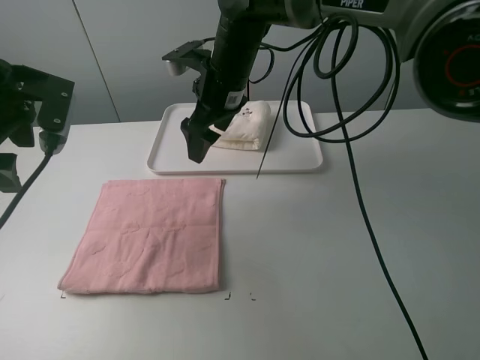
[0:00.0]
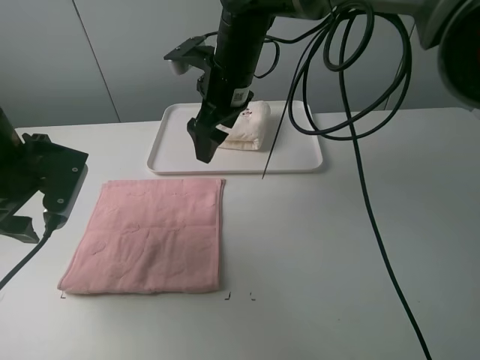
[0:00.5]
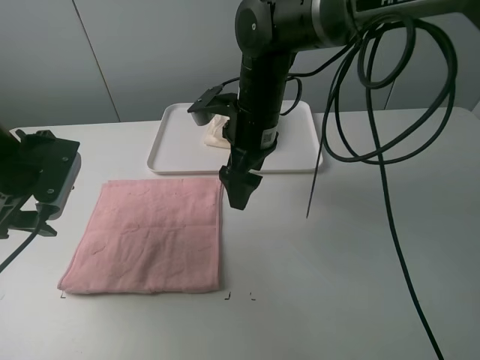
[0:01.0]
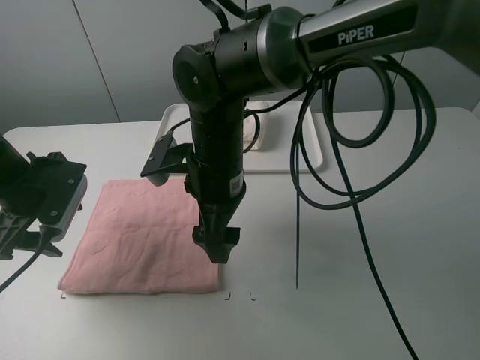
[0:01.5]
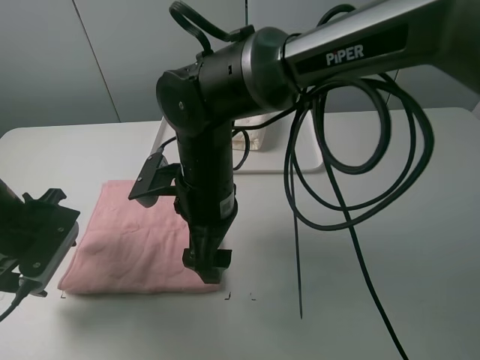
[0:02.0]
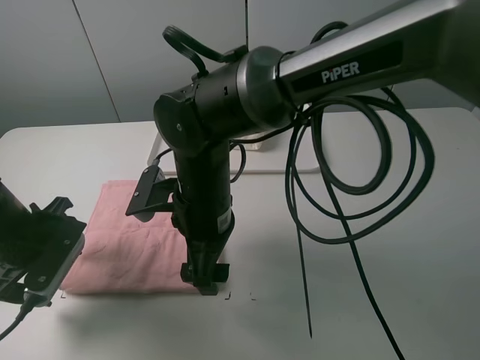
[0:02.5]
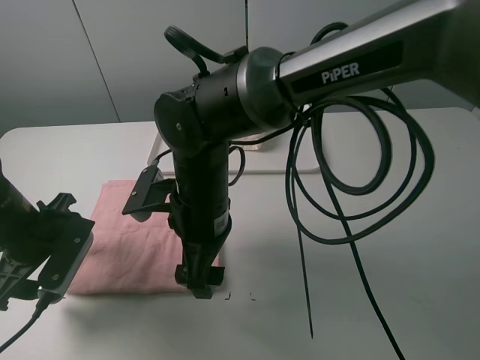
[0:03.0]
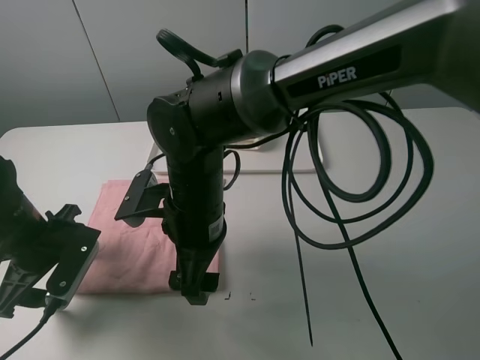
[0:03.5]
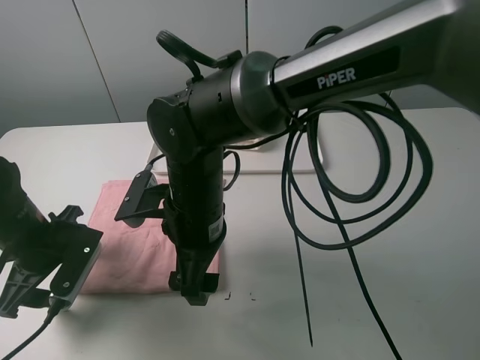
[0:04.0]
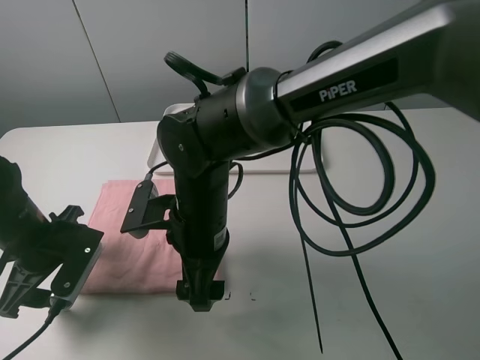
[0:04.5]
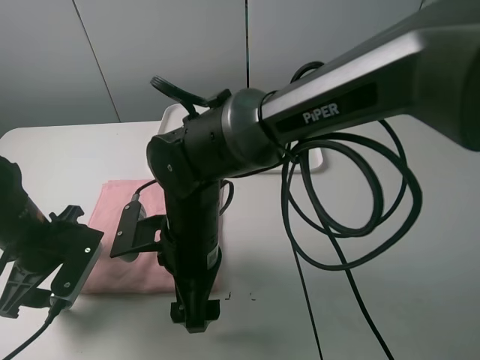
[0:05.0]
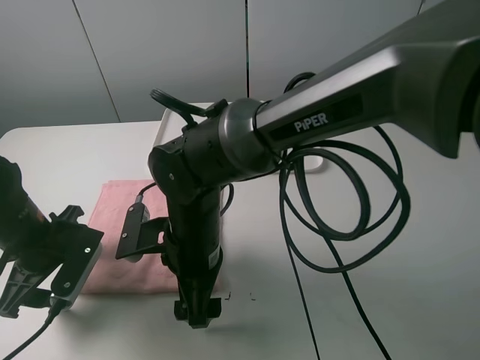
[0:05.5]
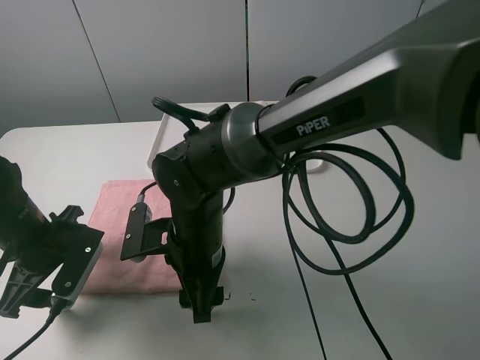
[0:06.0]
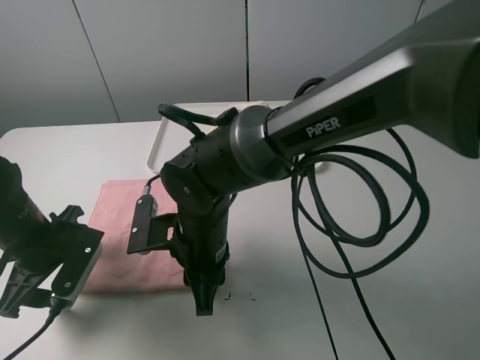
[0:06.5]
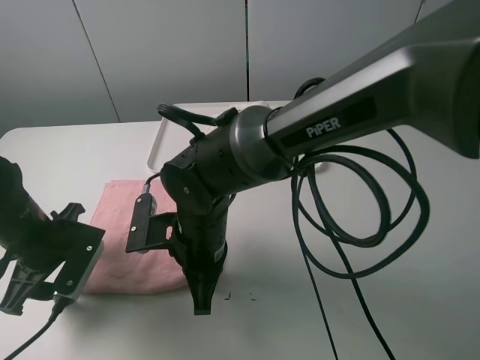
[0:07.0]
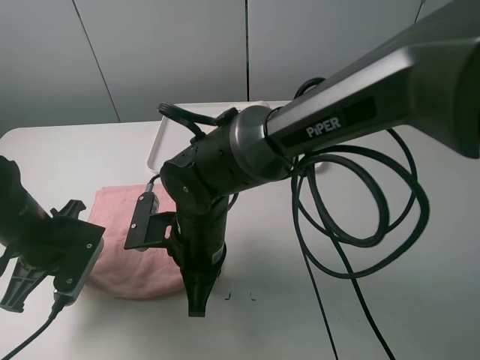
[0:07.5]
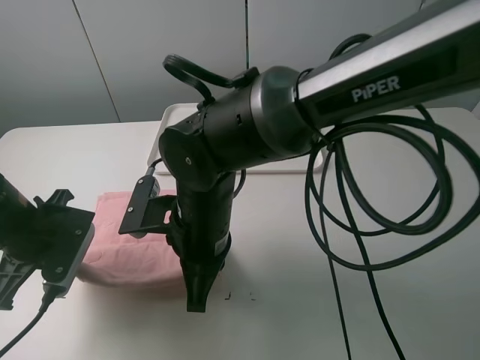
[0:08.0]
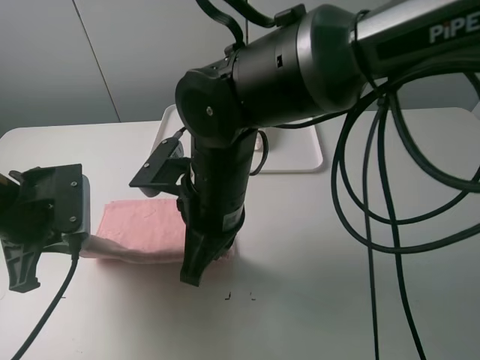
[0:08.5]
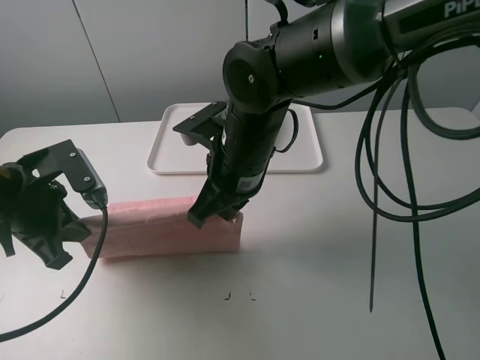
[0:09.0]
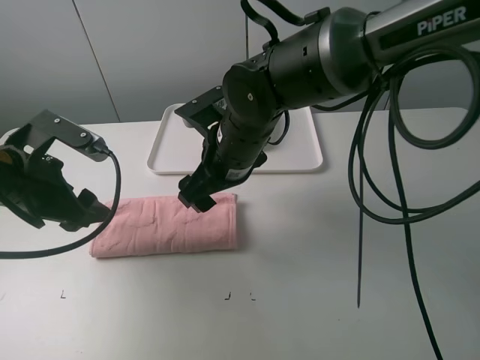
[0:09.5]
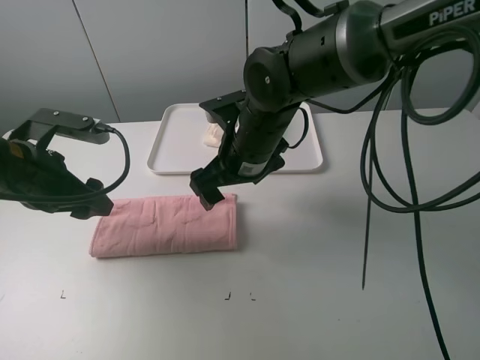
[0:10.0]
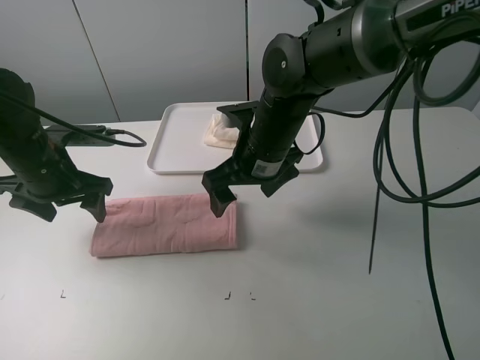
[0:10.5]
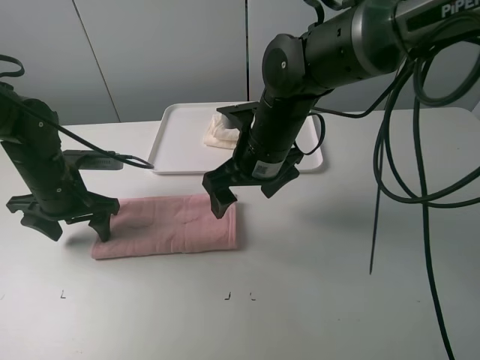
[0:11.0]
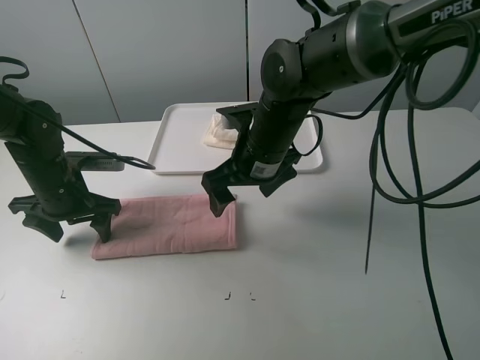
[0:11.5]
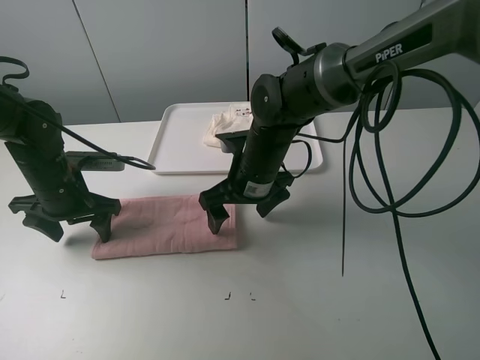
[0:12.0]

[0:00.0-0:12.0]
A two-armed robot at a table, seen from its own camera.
Task of the whole recording: fold one of the towels by two grippers and place it on the tray,then fold another towel by two grippers and place it on the folded towel.
Step, 0:00.0 to 0:07.0: Grasp the pink towel with the left gripper.
Step, 0:07.5 to 0:09.5: Fold the pink towel upwards with the left gripper.
Step, 0:10.0 to 0:11.0: Press the pink towel with the left gripper.
0:00.0 to 0:02.0: The left gripper is displaced downward and backward by roughly 15 cm. The right gripper shifts about 15 cm backward.
0:06.0 to 0:08.0: The right gripper closes its fingers, while the left gripper closes its fingers.
0:08.0 to 0:10.0: The left gripper moves some 5 cm, and opens up. The right gripper shifts some 10 cm forward and to the right, and opens up.
0:10.0 to 0:12.0: The right gripper moves downward, approximately 5 cm. Meanwhile the left gripper goes some 10 cm downward and forward.

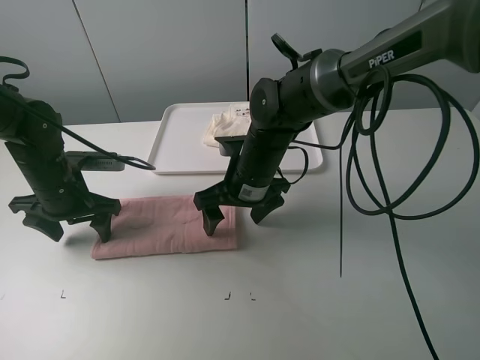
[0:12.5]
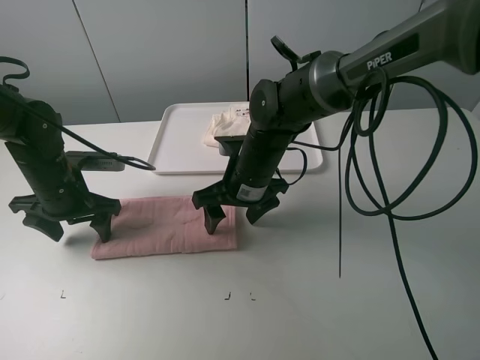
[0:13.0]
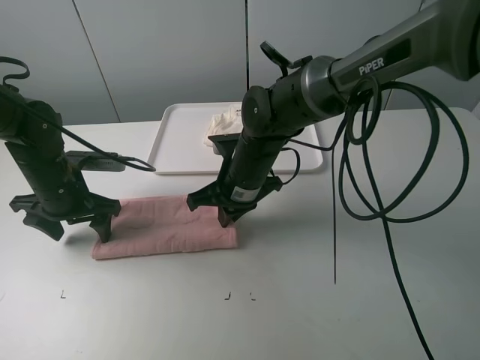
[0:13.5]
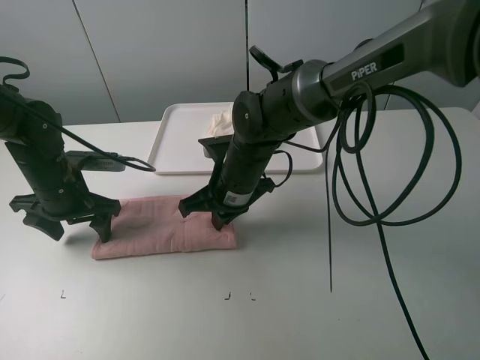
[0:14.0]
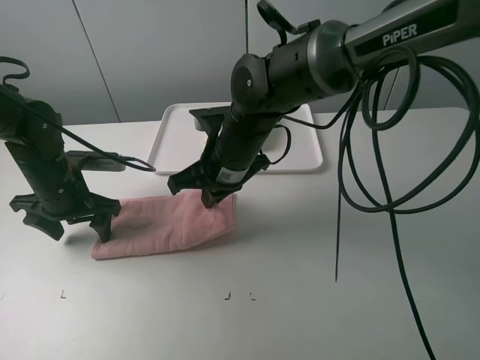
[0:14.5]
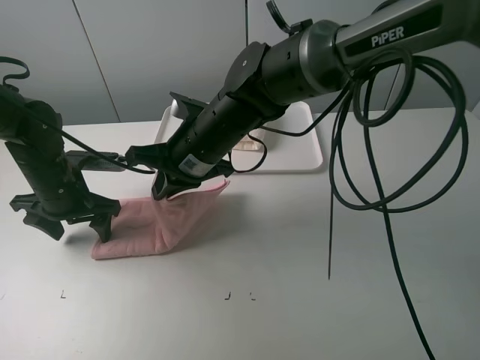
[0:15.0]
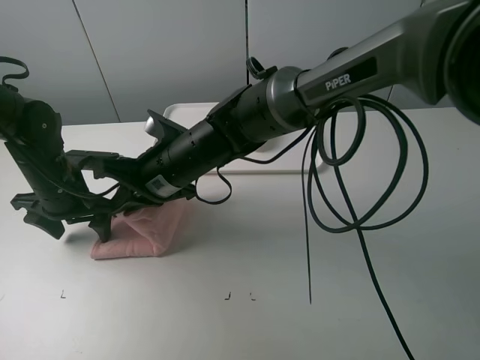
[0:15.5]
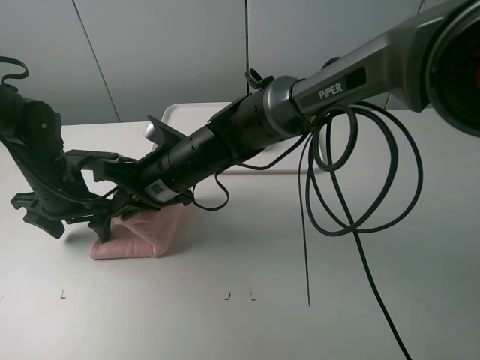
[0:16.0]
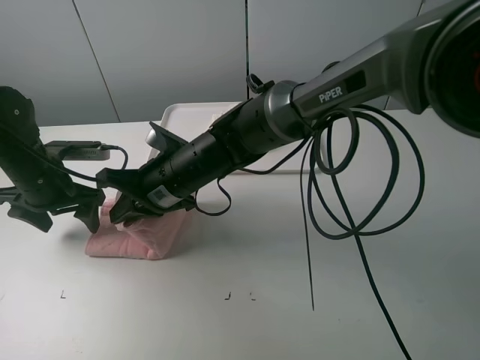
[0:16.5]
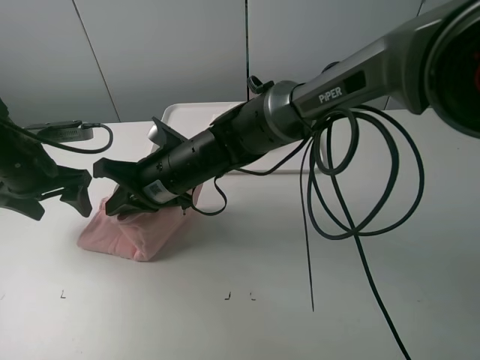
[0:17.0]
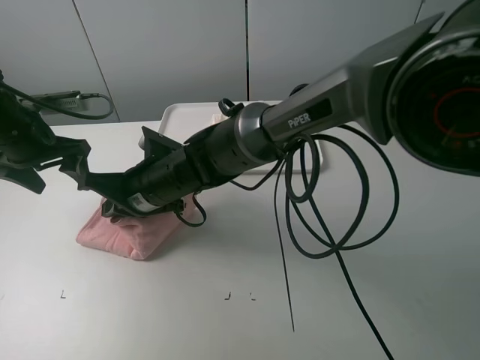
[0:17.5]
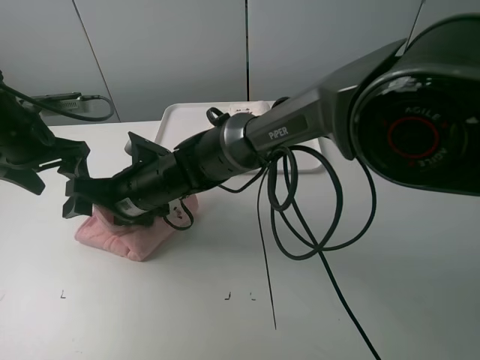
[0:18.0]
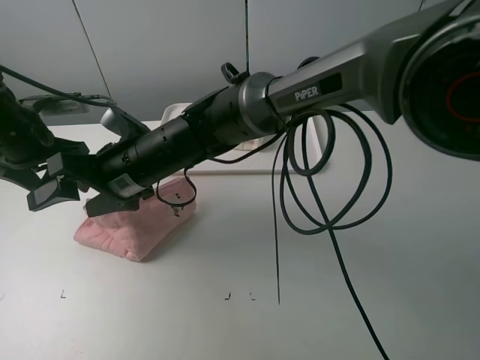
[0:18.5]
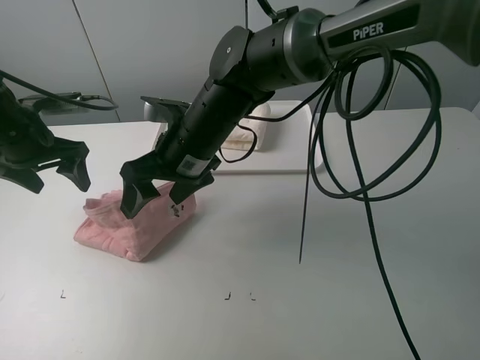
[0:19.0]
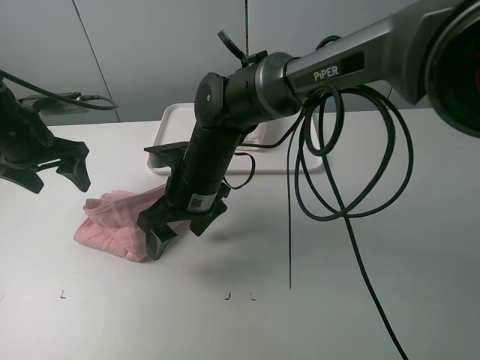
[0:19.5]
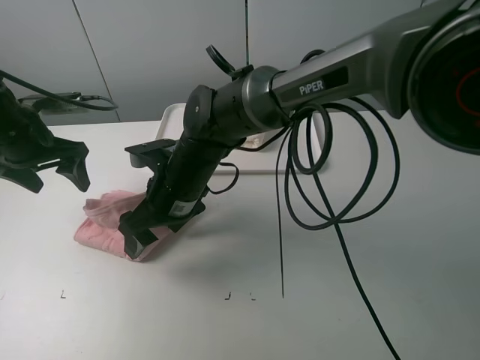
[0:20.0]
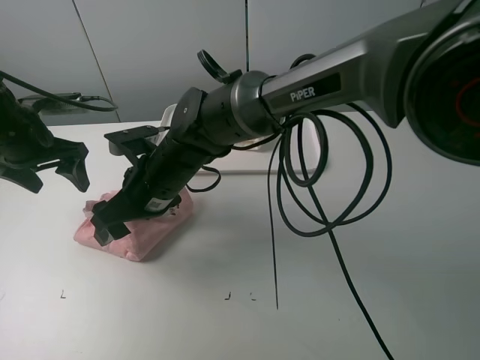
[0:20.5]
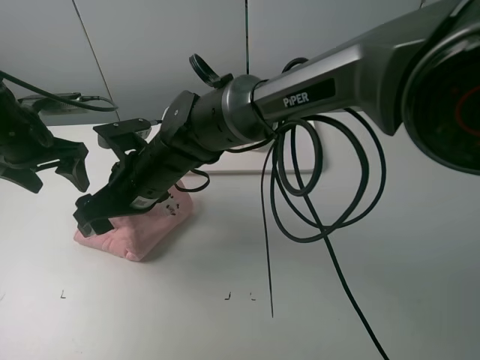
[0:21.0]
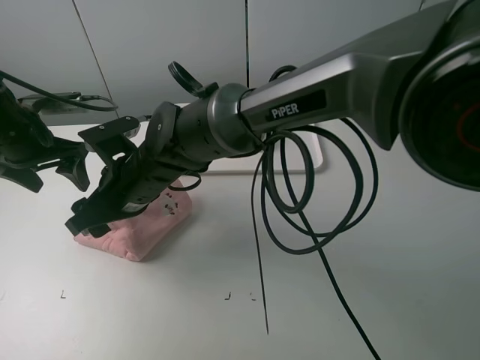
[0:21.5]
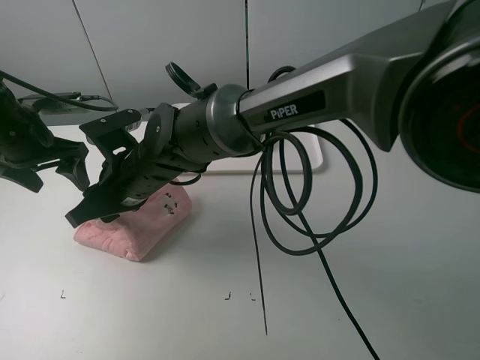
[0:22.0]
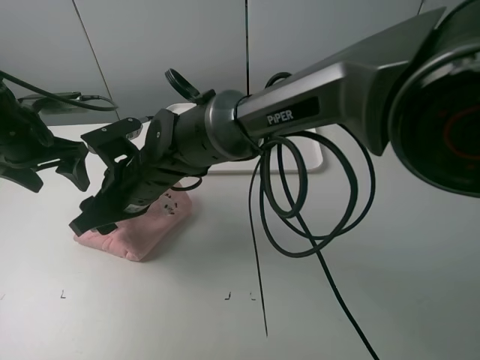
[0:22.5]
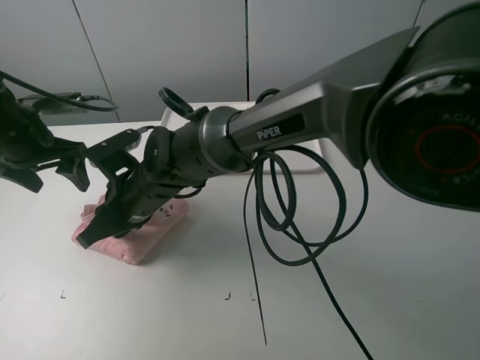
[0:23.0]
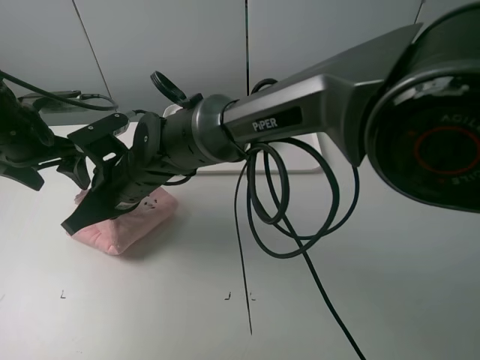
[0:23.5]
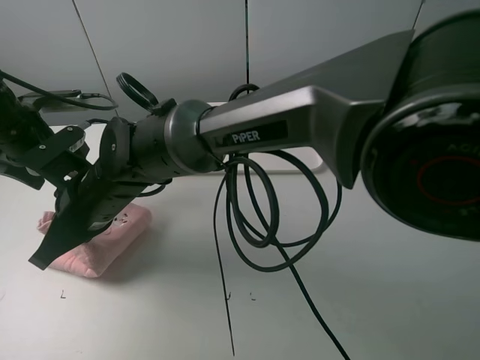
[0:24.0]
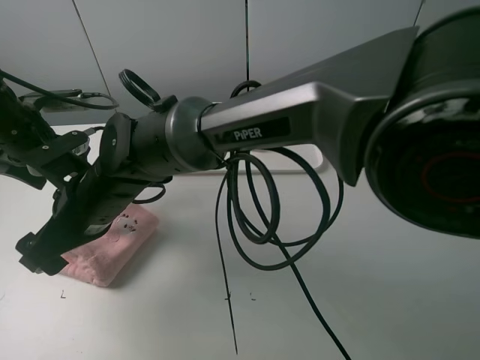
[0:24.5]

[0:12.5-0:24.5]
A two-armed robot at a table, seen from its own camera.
Task of the whole recording: fold one of the towels by two grippers and place it on the tray,then fold another towel by two grippers and place it on the folded towel.
Step, 0:14.0 to 0:18.5: Fold the pink towel from right to left with right gripper.
0:12.5 to 0:14.5: The right gripper shifts by about 5 cm, and closes.
0:14.5 to 0:16.5: The right gripper shifts roughly 5 cm to the left.
0:16.5 to 0:18.5: The right gripper opens up. The left gripper shifts roughly 5 cm upward.
0:22.5 to 0:24.5: The right gripper shifts by roughly 5 cm, and closes and opens again.

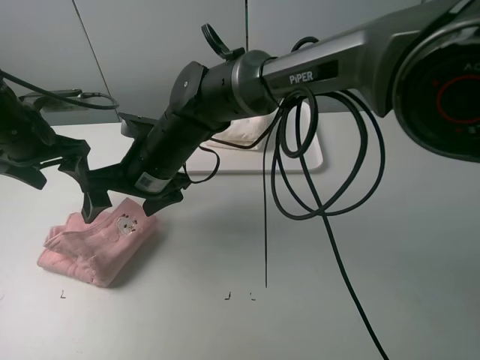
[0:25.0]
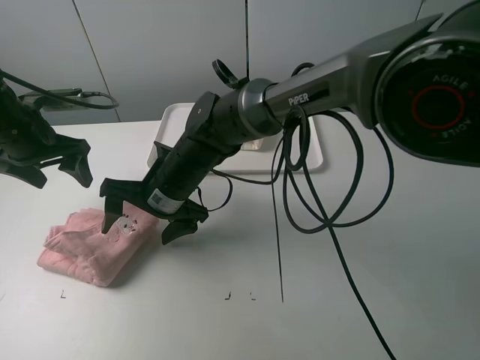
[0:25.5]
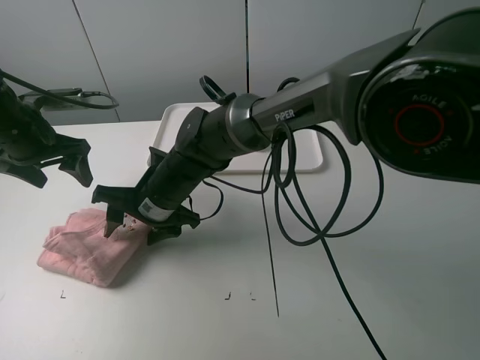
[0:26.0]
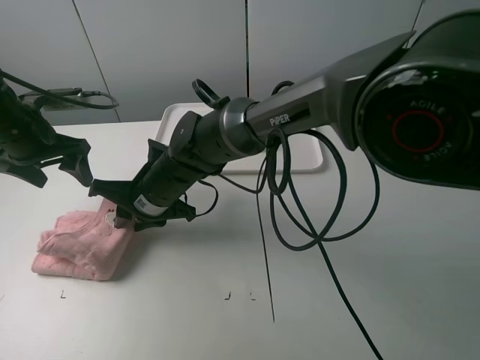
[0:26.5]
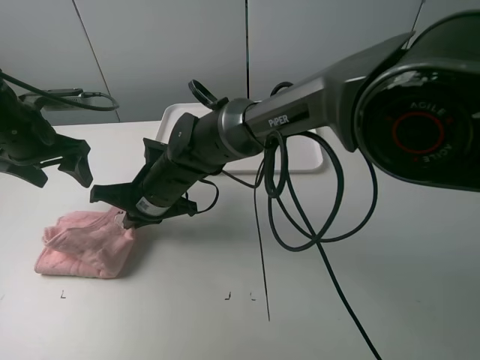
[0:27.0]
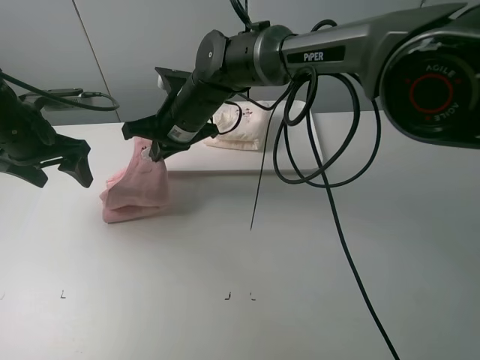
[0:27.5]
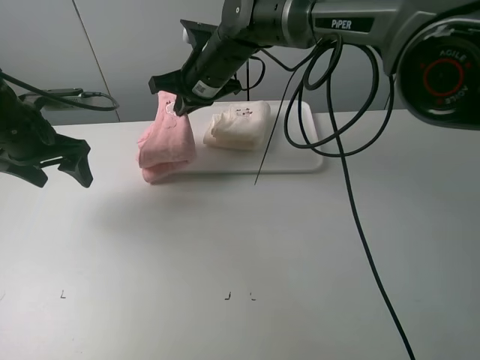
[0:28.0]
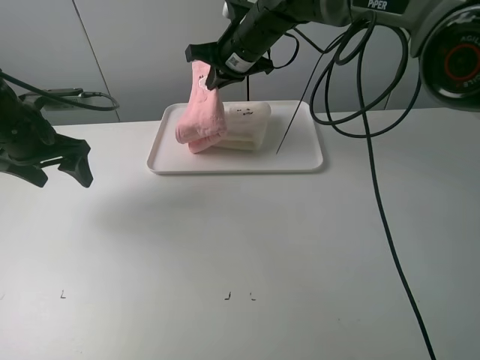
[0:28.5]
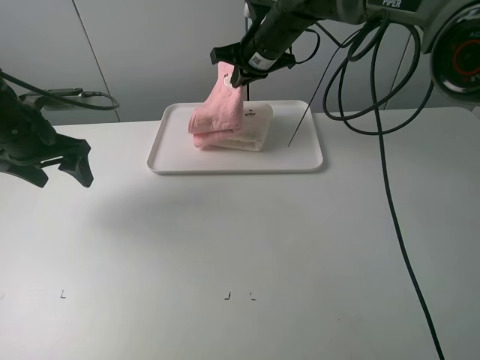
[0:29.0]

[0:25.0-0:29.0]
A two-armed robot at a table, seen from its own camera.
Task of the whole recording: fold one of the towels by two grippers and place it on the tray,then fold another towel by two grippers and place it on the folded towel.
0:25.0 to 0:27.0: The right gripper changes place by approximately 5 cm, and closes up.
0:27.0 to 0:29.0: The right gripper travels forward, to the right and upward by roughly 30 cm.
